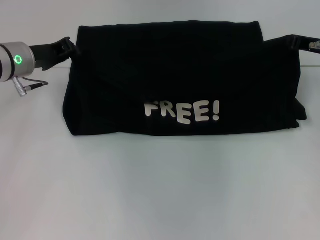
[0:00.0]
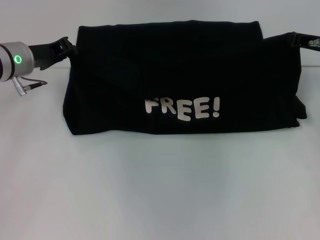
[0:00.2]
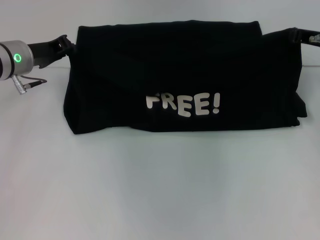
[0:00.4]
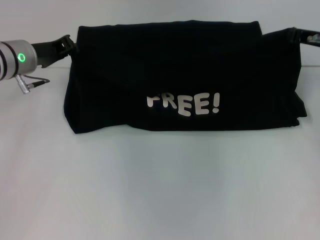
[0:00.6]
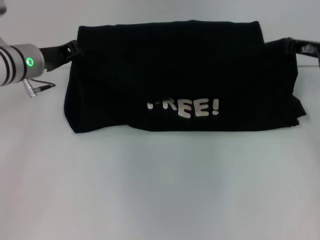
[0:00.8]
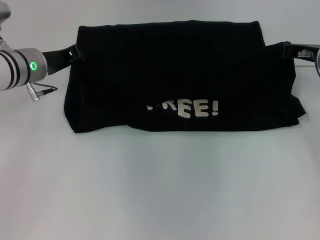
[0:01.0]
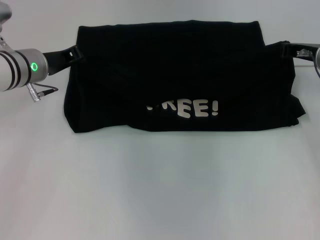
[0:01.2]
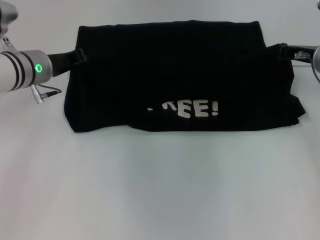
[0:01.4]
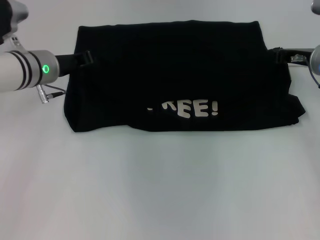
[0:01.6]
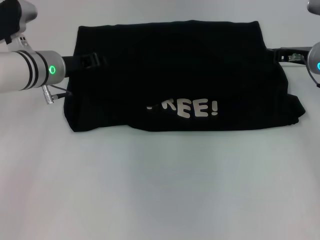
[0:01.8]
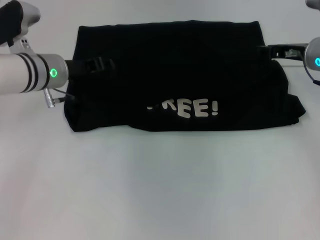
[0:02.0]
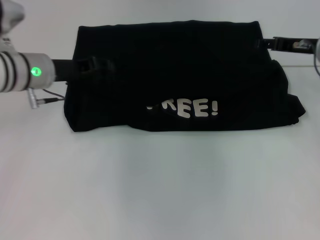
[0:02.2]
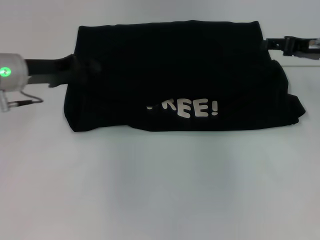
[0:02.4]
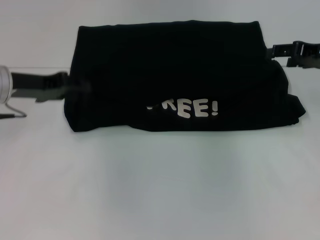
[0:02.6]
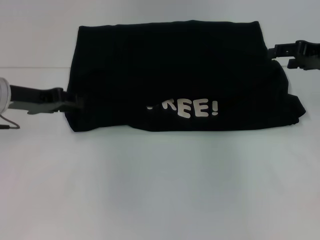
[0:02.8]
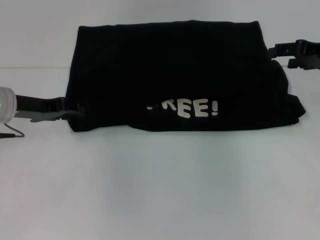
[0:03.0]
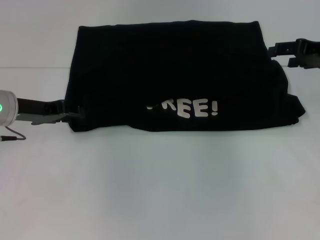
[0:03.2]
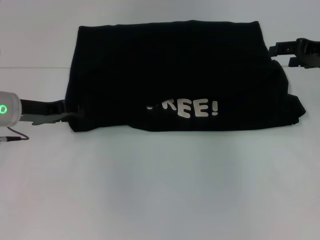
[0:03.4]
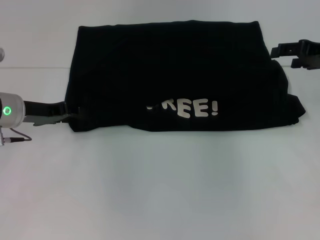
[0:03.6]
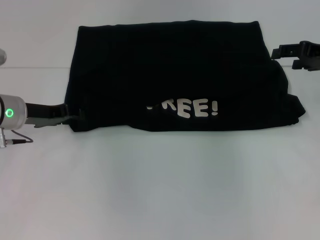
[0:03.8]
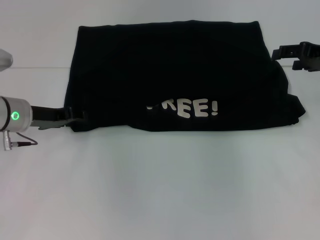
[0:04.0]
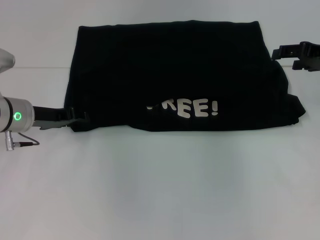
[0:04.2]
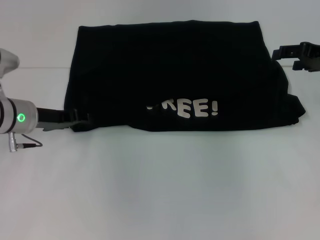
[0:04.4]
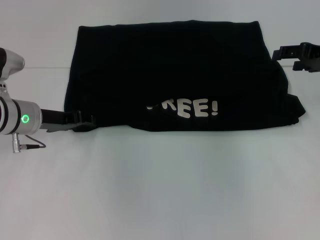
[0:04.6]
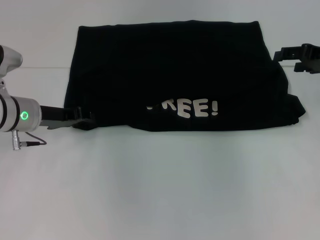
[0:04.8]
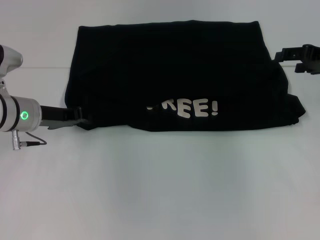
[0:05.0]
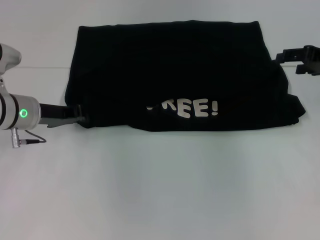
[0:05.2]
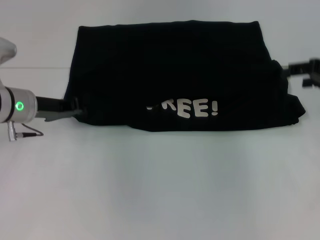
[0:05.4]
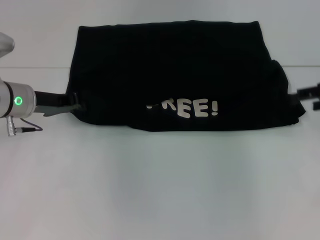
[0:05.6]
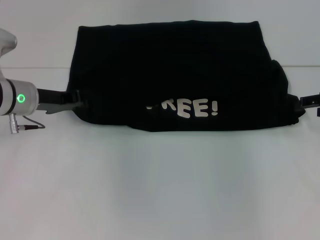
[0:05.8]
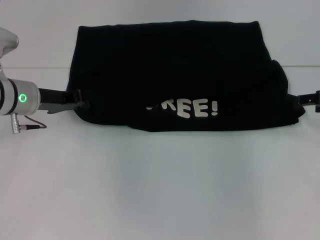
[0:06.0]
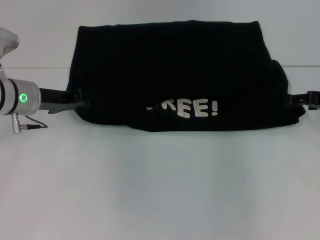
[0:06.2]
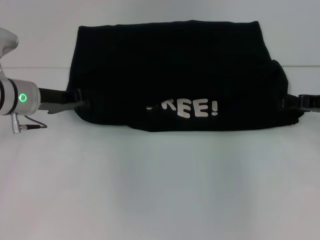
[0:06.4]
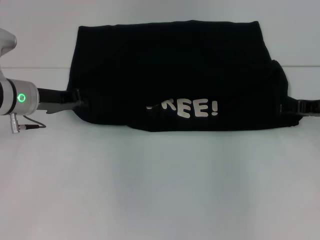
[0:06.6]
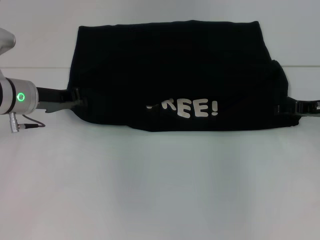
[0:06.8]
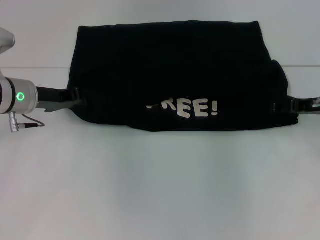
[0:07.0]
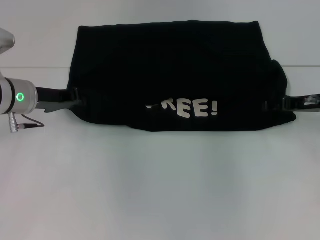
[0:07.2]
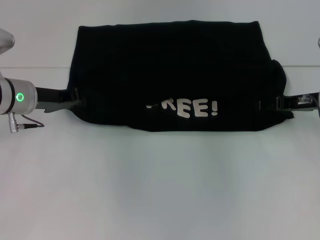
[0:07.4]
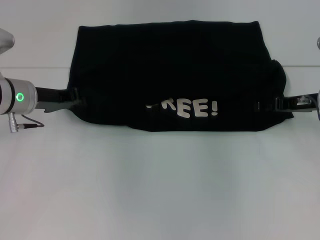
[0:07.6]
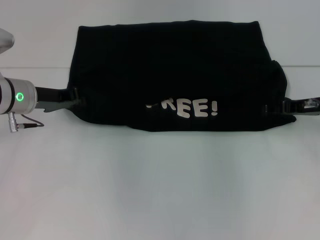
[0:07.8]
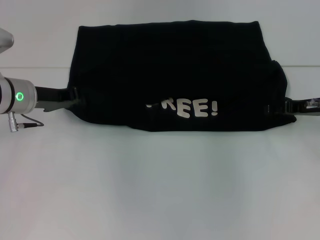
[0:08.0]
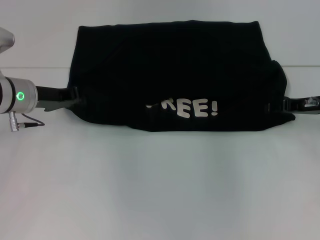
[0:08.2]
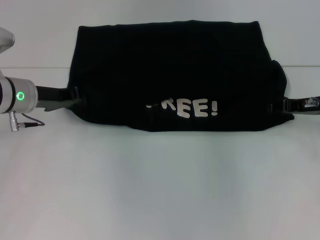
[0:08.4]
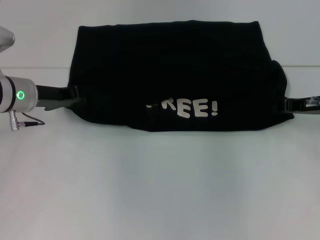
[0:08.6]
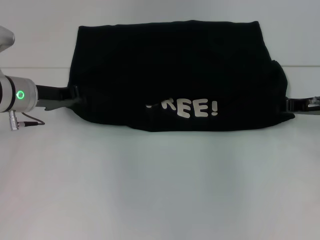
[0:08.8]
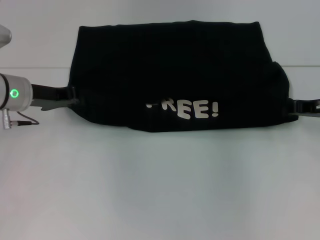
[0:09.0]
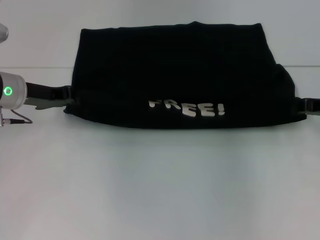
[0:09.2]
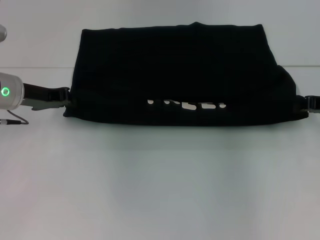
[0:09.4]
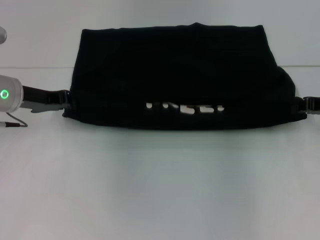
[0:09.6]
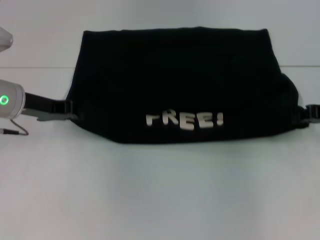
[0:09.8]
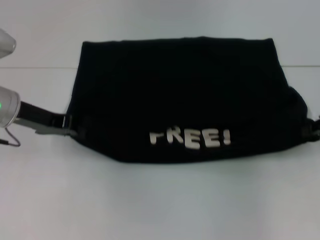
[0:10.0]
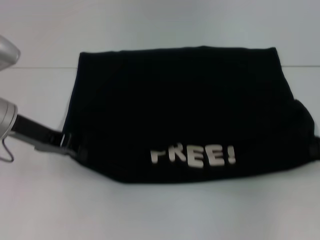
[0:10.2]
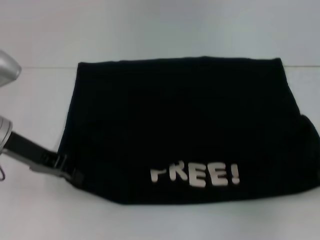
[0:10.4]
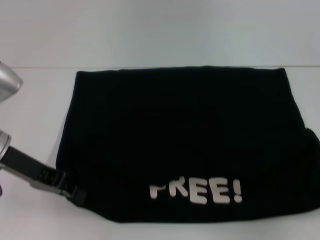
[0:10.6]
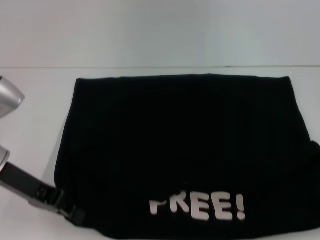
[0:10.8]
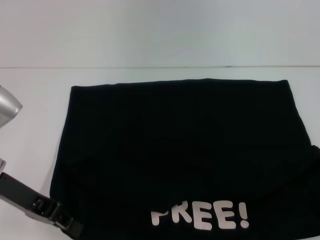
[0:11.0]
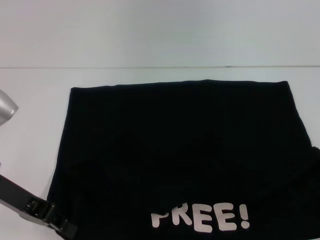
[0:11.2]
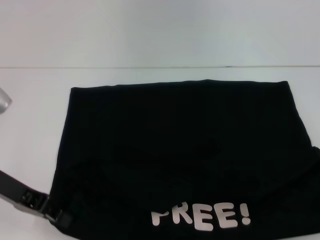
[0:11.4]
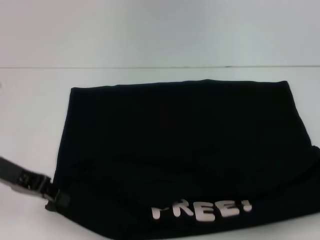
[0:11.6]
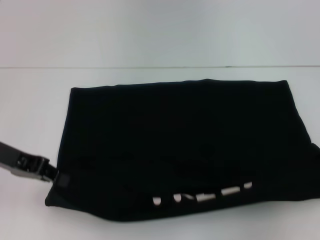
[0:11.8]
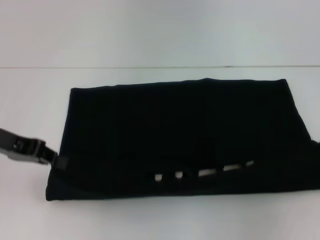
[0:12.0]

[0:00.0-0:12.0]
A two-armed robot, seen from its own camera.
Step, 0:00.0 to 0:02.4: Fold the clothes with your left hand.
Step, 0:00.0 to 0:02.4: Fold the clothes with your right hand.
Step, 0:02.6 to 0:11.0: Pull the clothes with your left hand.
Step, 0:02.6 to 0:11.0: Pull the clothes with your right hand.
0:00.0 to 0:01.6: The grippers make only small movements.
0:01.6 to 0:03.0: The left gripper shifts some 10 cm to the left and backward, and opens; the right gripper shifts about 5 cm upward, and opens its fingers.
0:03.0 to 0:04.4: The grippers move only a little.
0:04.4 to 0:06.0: The right gripper ends up some 5 cm from where it was. Meanwhile the left gripper closes up.
0:06.0 to 0:07.6: The right gripper shifts about 5 cm to the left.
0:07.6 to 0:09.0: The right gripper closes its fingers.
0:09.0 to 0:10.4: The left gripper is displaced backward by roughly 5 cm. Meanwhile the right gripper shifts approximately 10 cm backward and to the right.
0:10.4 to 0:12.0: The right gripper moves some 5 cm.

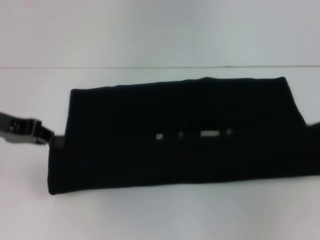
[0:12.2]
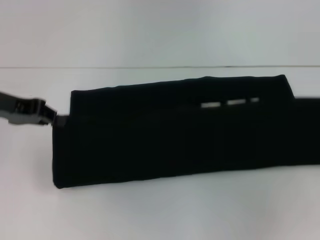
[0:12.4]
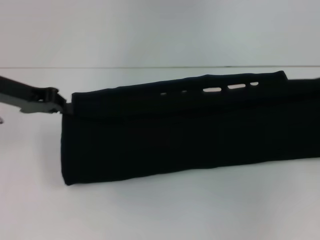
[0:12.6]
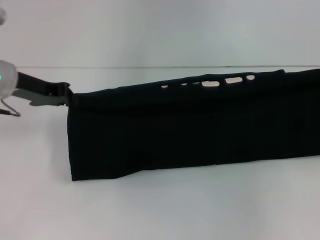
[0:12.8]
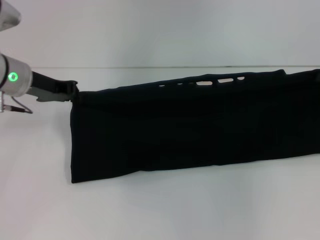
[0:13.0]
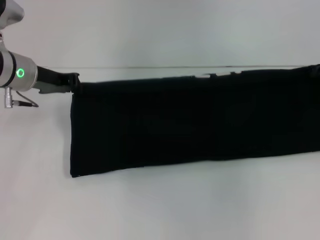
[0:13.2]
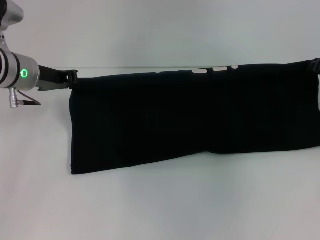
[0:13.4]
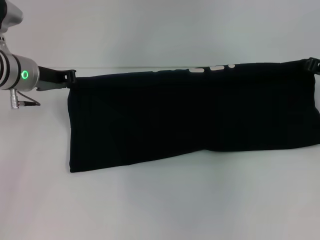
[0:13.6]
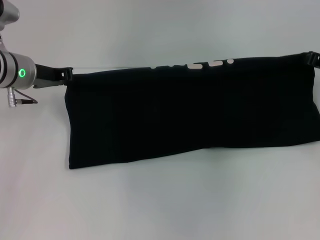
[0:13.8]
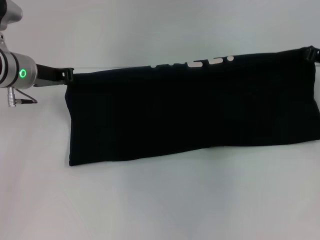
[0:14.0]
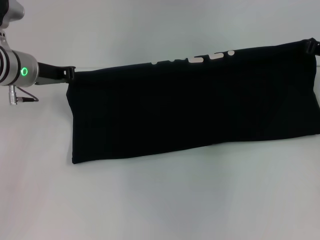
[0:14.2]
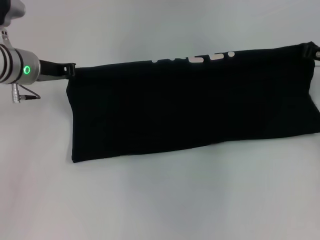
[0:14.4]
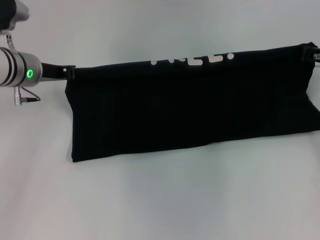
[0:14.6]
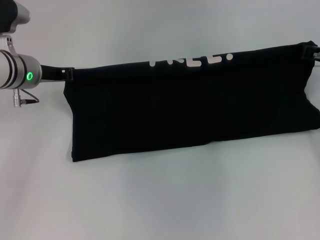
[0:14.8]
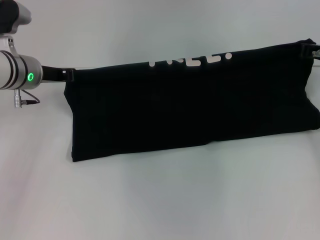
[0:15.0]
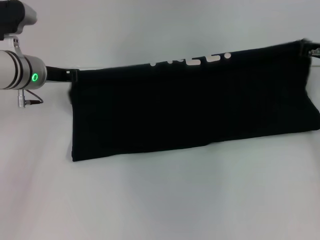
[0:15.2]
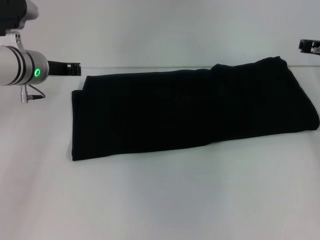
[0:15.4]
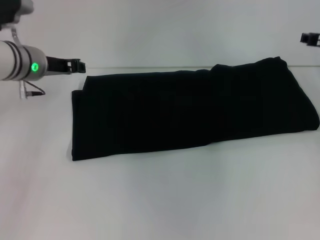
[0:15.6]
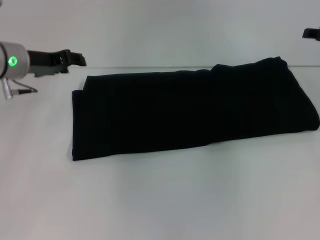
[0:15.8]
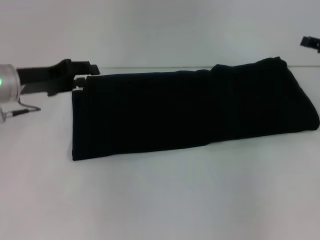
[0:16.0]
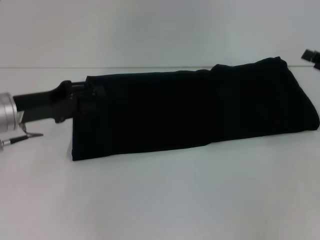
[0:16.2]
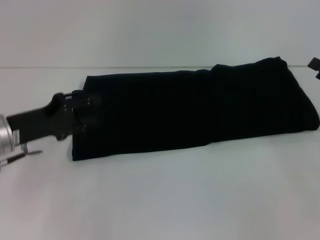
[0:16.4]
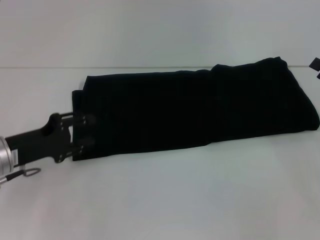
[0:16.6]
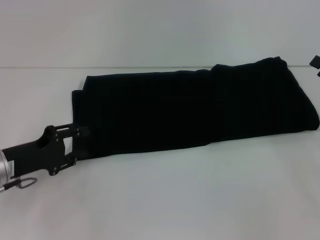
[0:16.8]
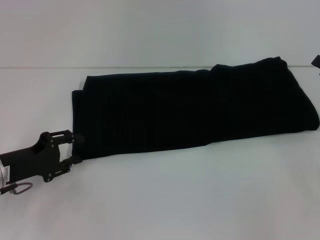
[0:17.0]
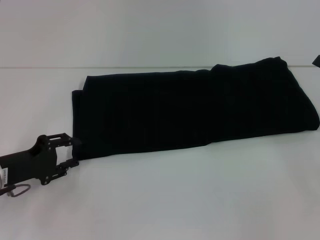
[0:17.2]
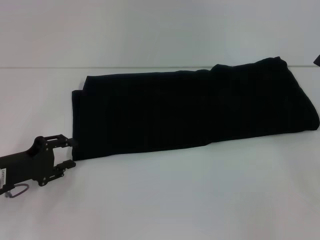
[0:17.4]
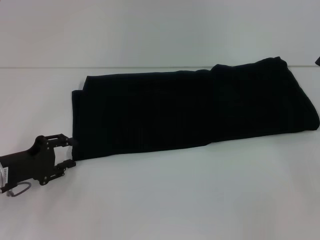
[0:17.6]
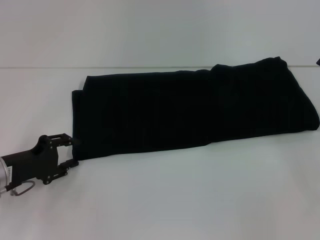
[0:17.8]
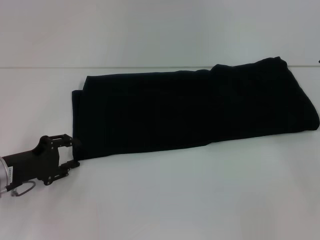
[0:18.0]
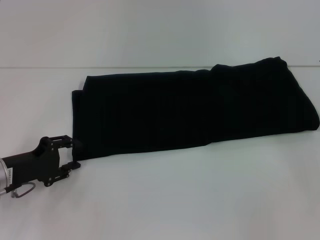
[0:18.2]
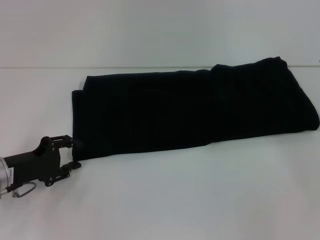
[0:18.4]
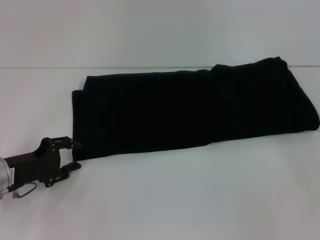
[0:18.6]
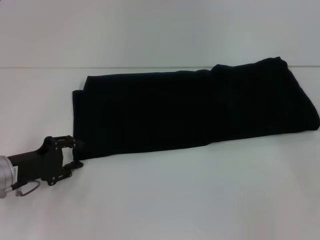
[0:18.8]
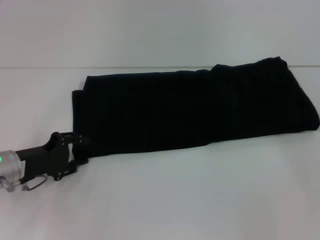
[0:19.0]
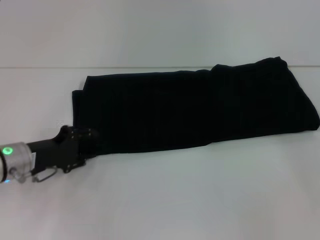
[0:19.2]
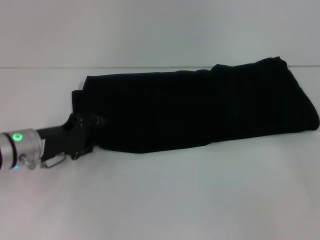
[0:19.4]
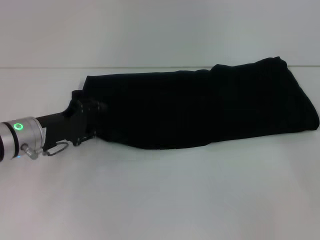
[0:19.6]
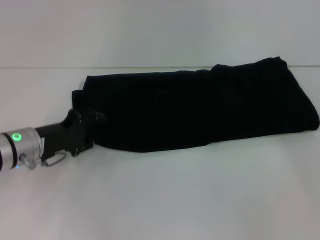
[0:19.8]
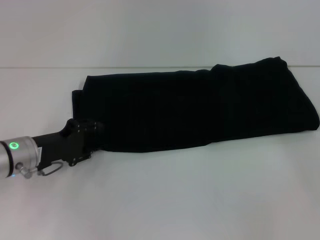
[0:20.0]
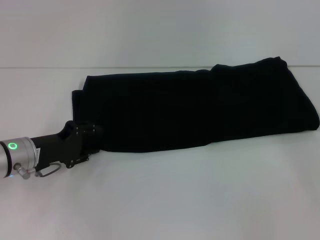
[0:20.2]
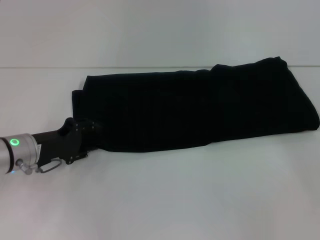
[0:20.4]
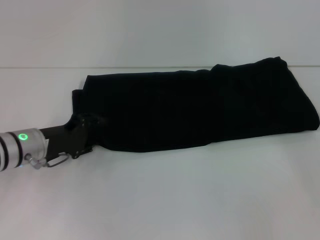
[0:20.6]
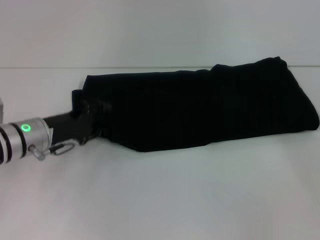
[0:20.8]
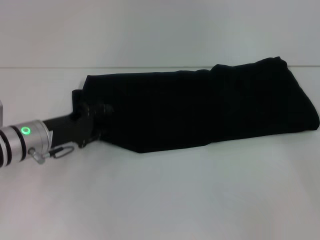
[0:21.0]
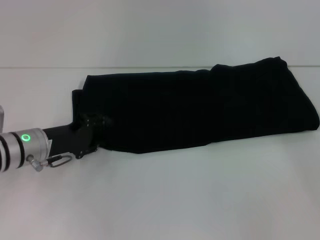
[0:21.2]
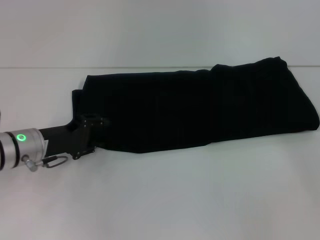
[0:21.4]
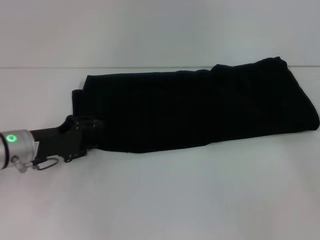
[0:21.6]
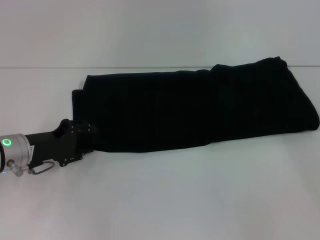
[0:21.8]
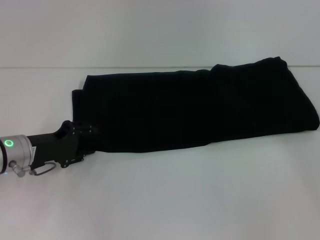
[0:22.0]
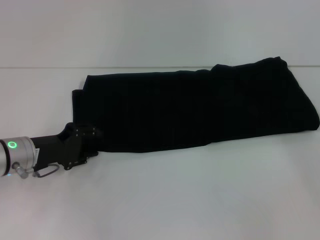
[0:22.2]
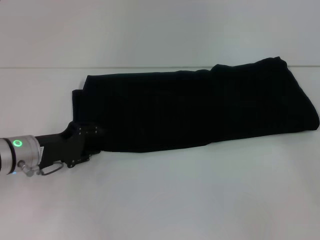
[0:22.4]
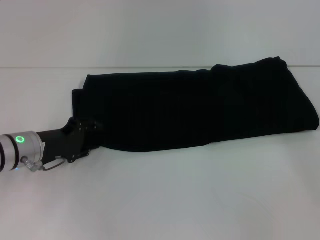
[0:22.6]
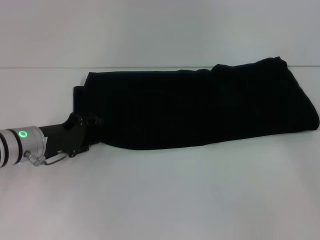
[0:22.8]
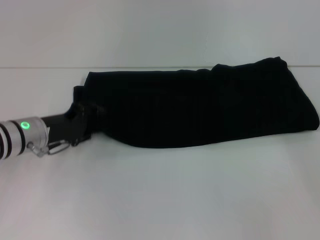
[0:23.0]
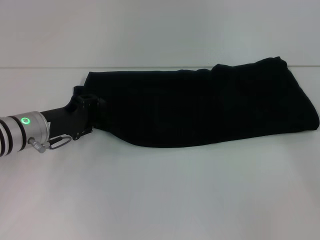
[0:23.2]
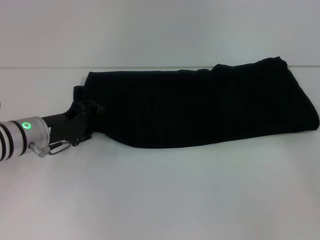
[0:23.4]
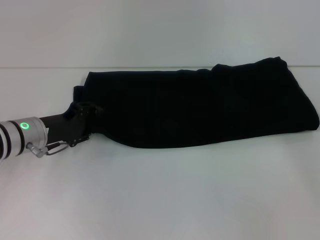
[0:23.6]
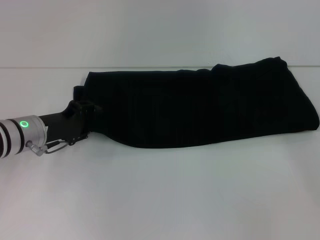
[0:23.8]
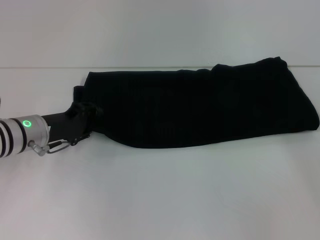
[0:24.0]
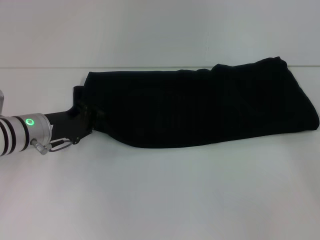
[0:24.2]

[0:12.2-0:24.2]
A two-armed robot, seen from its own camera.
Step, 0:12.2 to 0:15.6: Fold the clothes with your right hand.
0:12.2 to 0:13.8: The left gripper moves forward and to the right, roughly 10 cm. Meanwhile the right gripper shifts about 15 cm forward, to the left and downward.
0:13.8 to 0:15.2: There are only small adjustments of the grippers.
0:15.2 to 0:16.6: The left gripper moves backward and downward, roughly 15 cm, and opens its fingers; the right gripper heads backward and to the right, covering approximately 15 cm, and opens.
0:16.6 to 0:18.2: The grippers move only a little.
0:18.2 to 0:19.8: The left gripper moves about 5 cm.
0:19.8 to 0:24.2: There are only small adjustments of the grippers.
